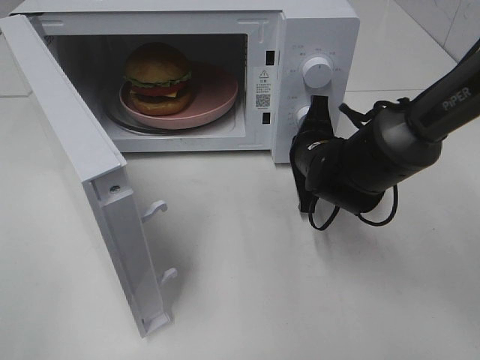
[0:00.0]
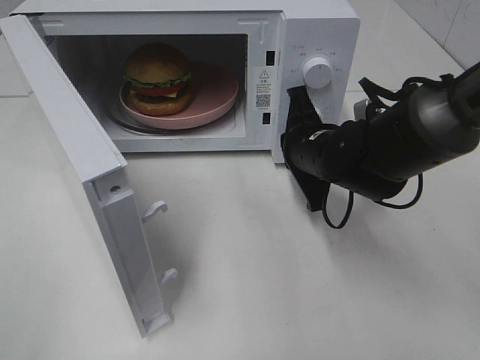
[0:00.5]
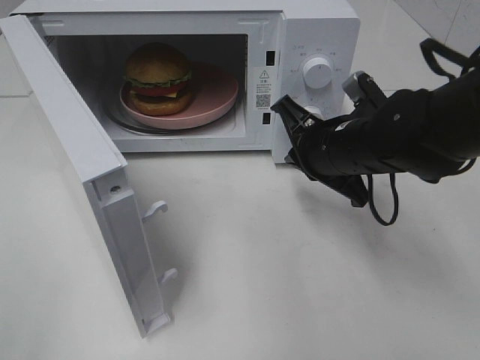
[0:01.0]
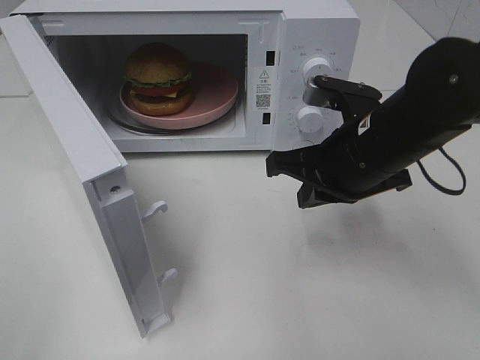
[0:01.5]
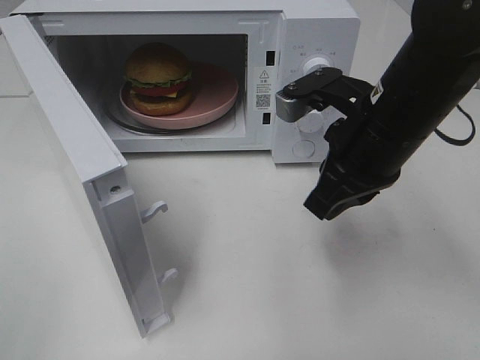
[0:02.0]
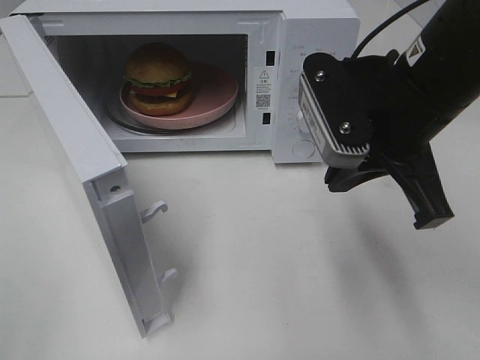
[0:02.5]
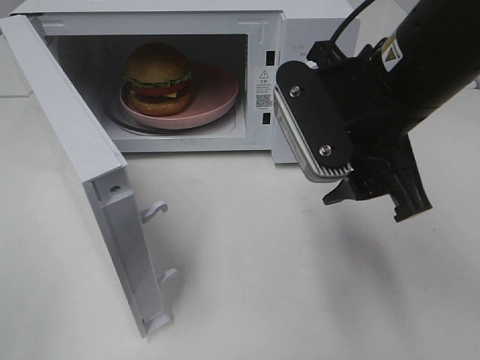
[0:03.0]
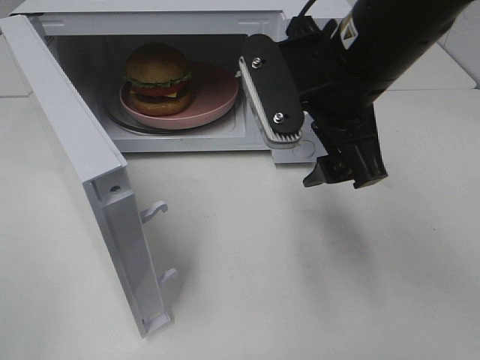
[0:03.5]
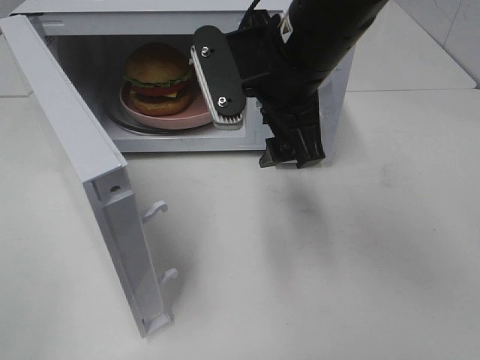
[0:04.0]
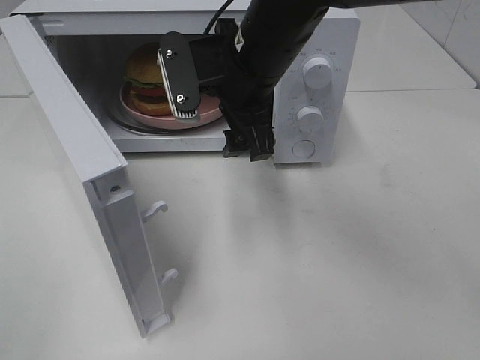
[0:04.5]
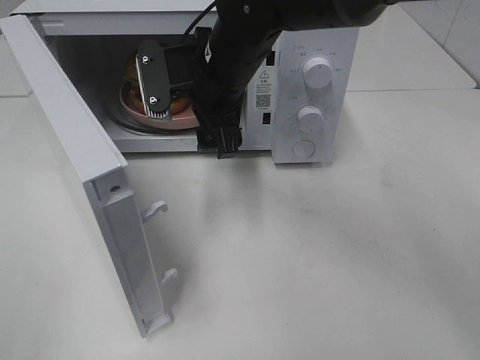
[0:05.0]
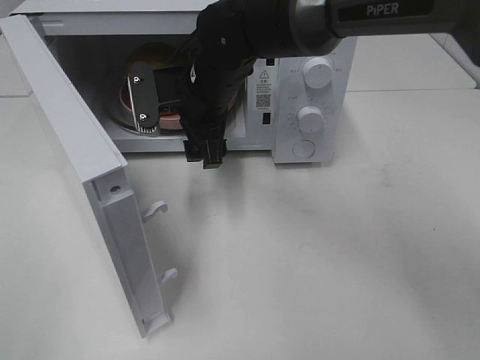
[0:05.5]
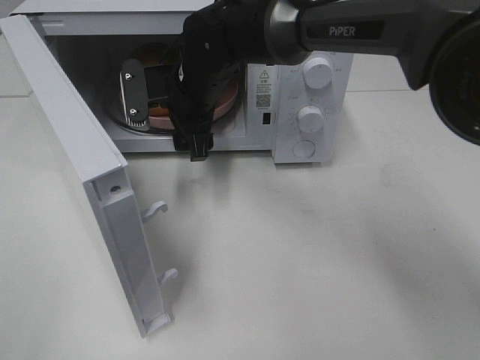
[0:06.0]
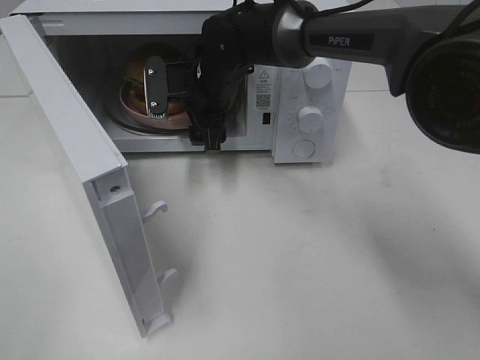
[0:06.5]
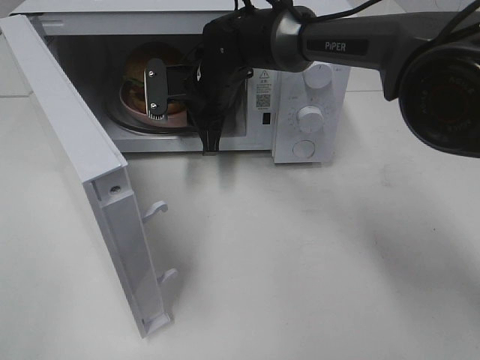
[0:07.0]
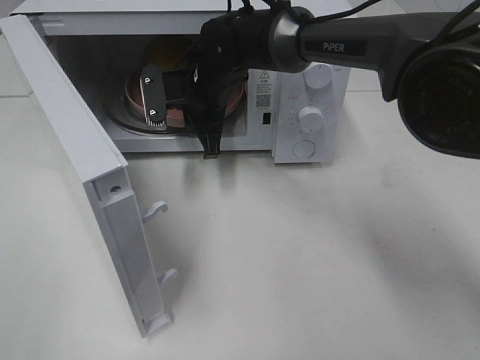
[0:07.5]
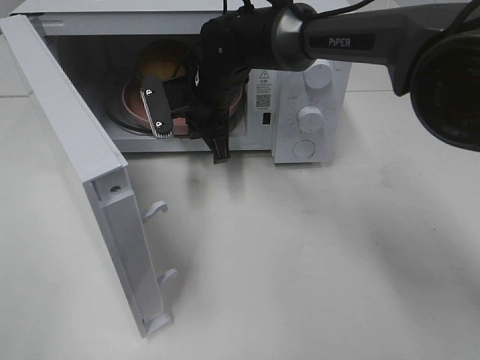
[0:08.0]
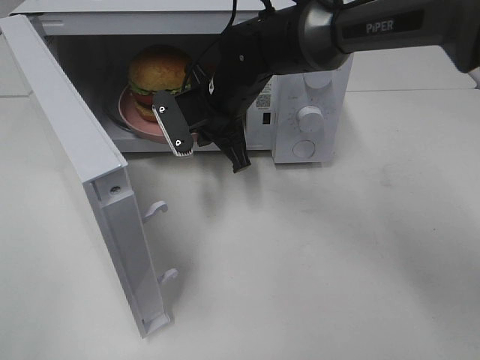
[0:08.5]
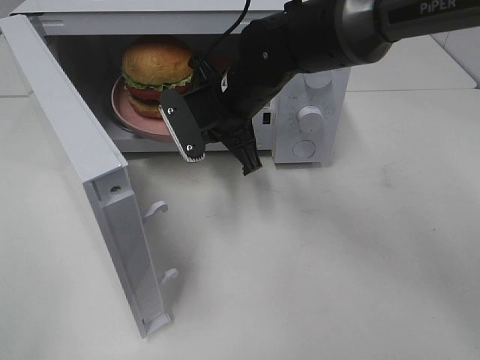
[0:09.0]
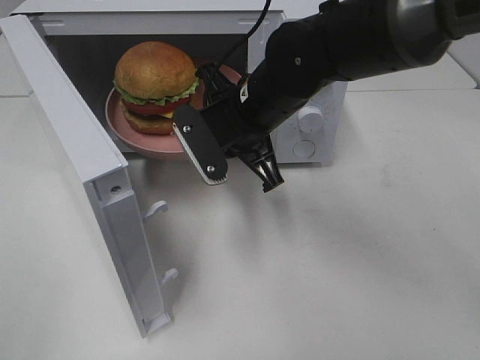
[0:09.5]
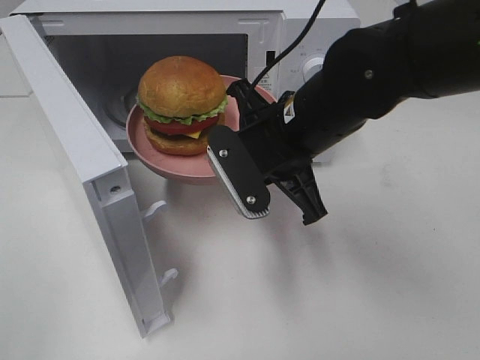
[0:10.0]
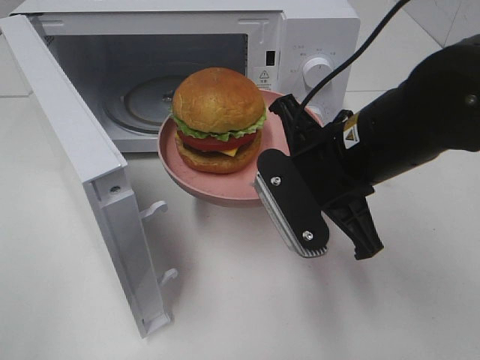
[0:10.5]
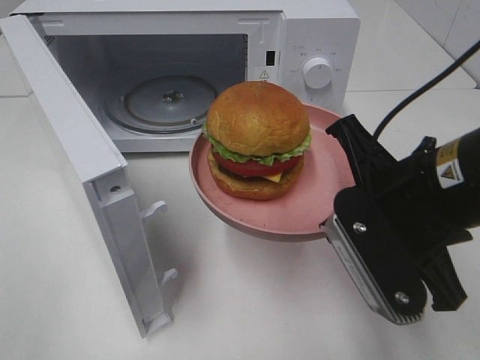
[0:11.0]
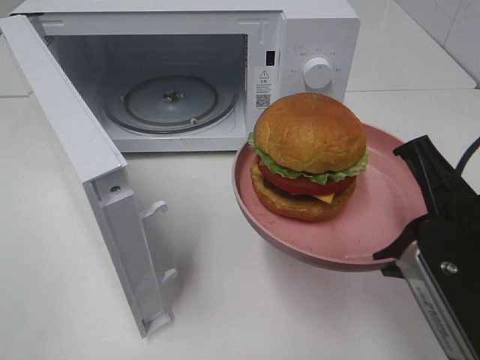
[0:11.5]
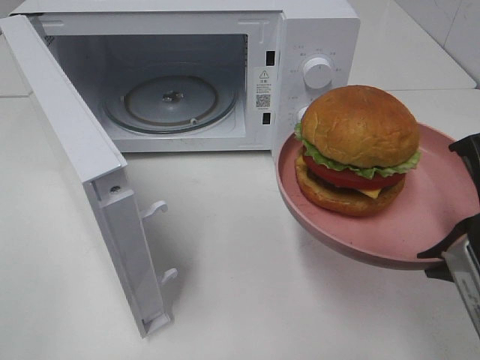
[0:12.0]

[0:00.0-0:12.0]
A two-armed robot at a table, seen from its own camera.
Task of the whole recording: Heat the burger.
Step, 0:01.0 to 0:07.0: Right hand: grab the plate with the hamburger.
0:00.0 to 0:02.0: The right gripper travels upward and backward by some 15 cm.
0:02.0 to 0:04.0: The right gripper moves to the left, about 10 cm, and opens.
0:04.0 to 0:06.0: The right gripper is displaced forward, to the left and downward by some 15 cm.
0:06.0 to 0:08.0: The right gripper closes.
0:08.0 to 0:10.0: The right gripper heads backward and to the right, covering about 15 cm.
0:10.0 to 0:12.0: The right gripper travels backward and to the right by roughly 20 cm.

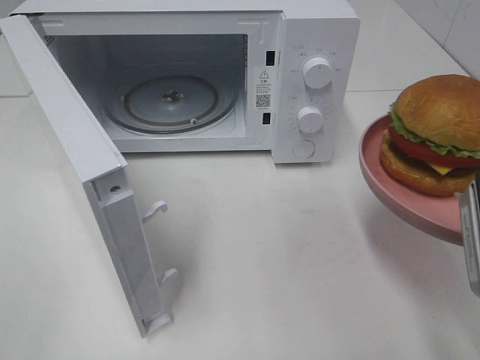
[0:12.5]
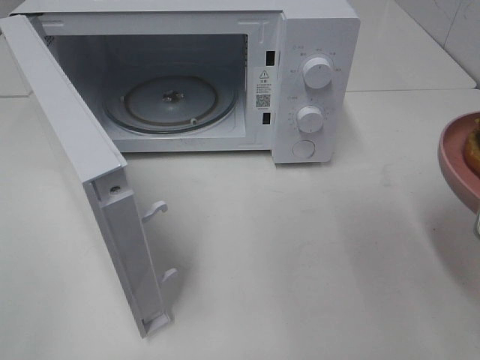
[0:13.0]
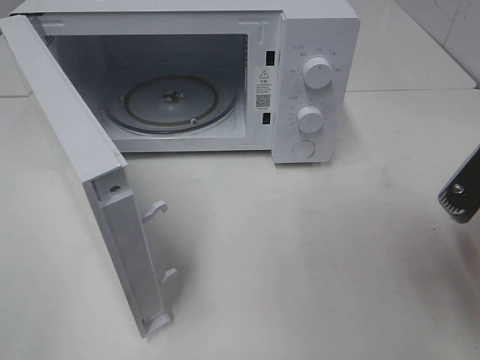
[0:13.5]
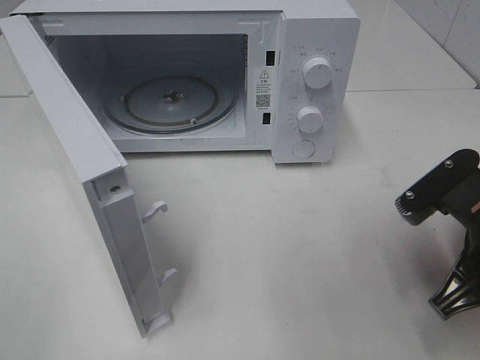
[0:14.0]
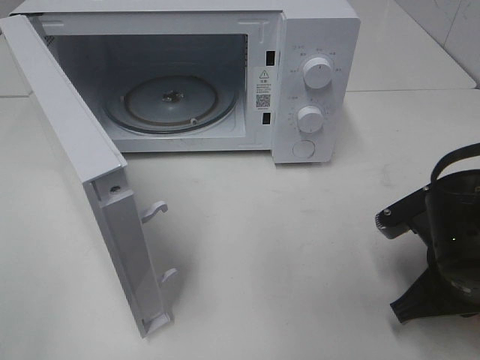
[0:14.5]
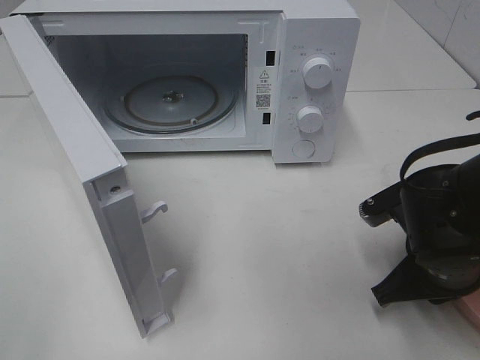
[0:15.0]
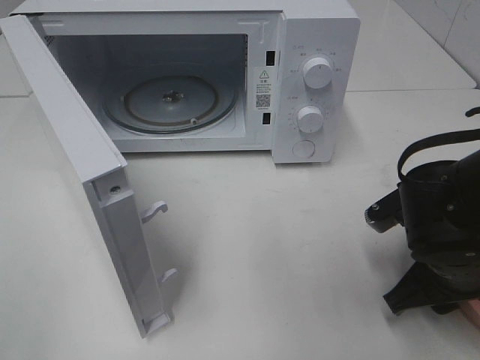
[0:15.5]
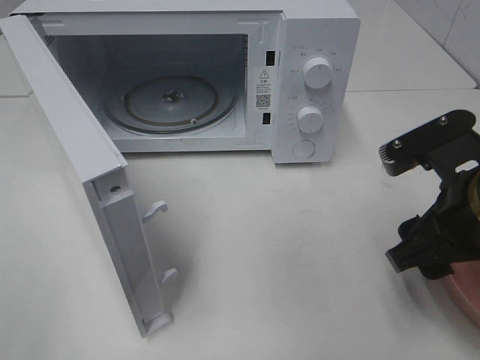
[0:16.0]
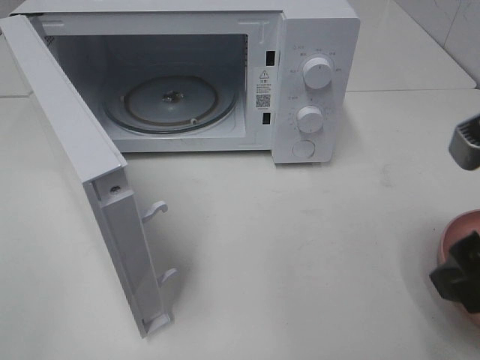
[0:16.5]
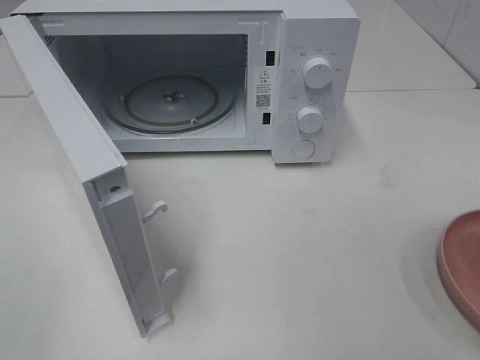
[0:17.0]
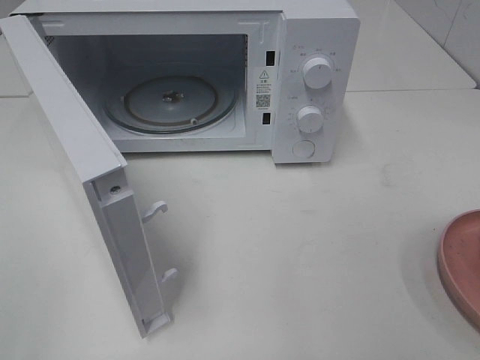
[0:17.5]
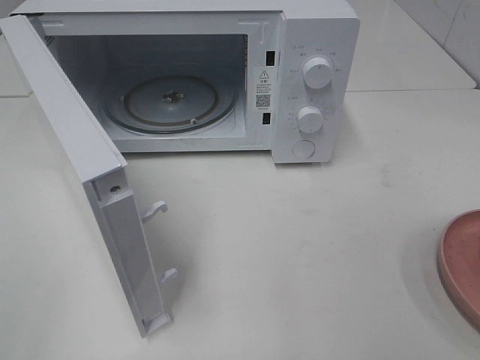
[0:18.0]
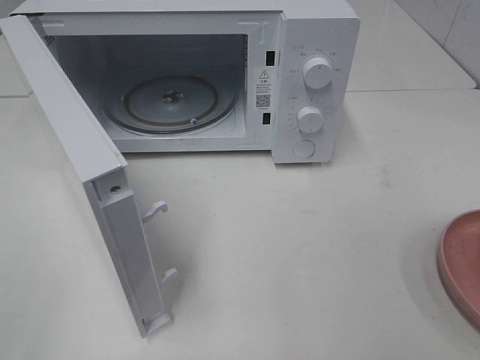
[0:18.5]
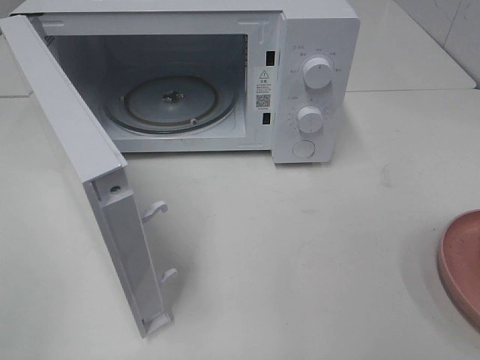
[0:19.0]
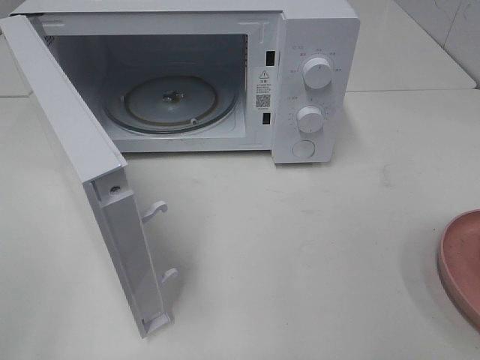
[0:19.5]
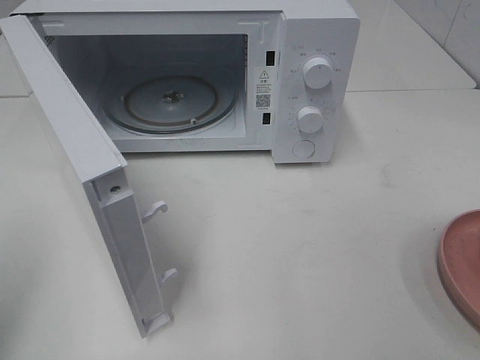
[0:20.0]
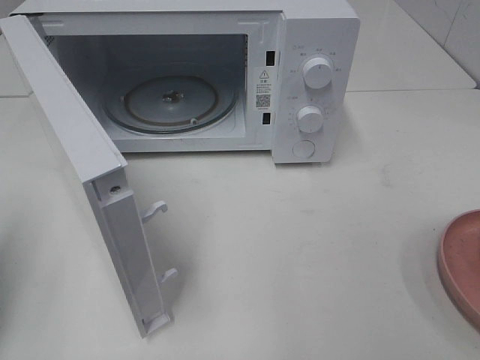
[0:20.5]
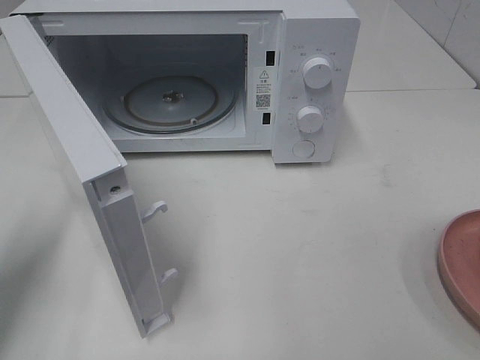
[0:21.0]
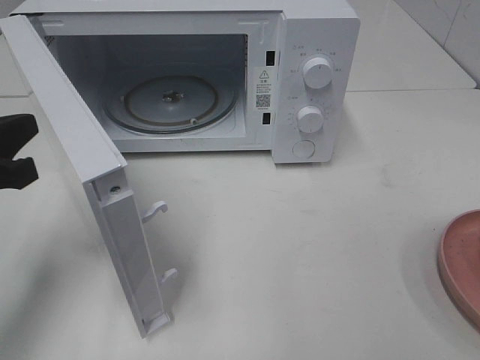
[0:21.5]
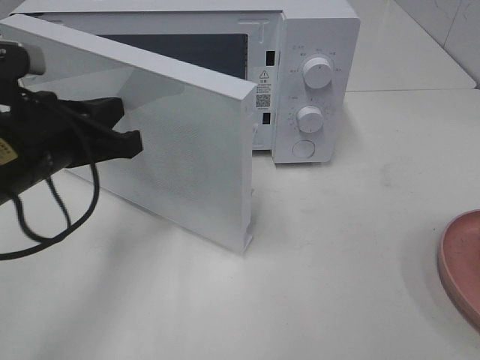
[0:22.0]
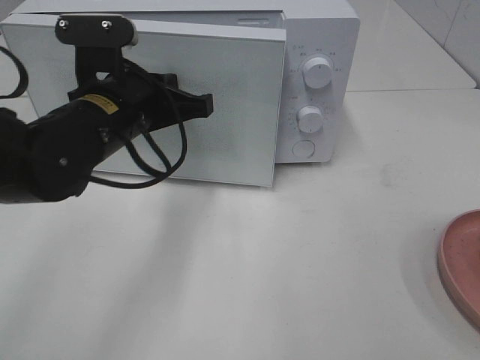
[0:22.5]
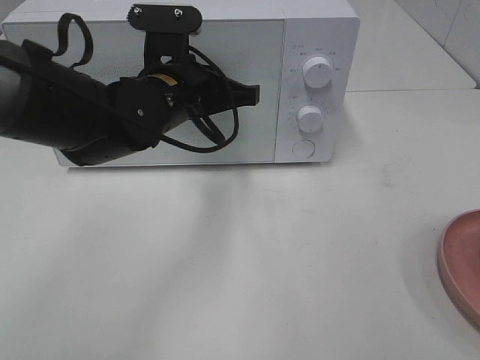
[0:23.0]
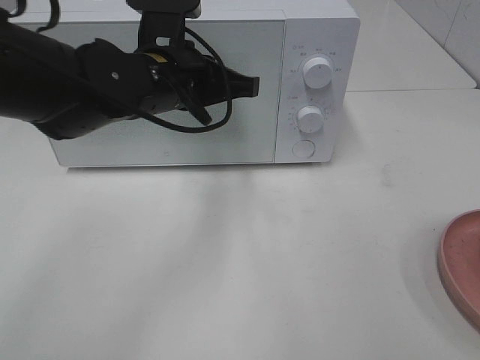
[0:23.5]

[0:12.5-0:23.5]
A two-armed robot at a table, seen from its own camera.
Task of the whole recording: Heat the burger.
Step, 0:12.5 to 0:16.0: Right hand: place the plate on the table.
0:12.5 to 0:14.5: The right gripper moves downward and forward, about 15 cm.
0:14.5 to 0:16.0: The right gripper is displaced upward by roughly 10 cm, and opens.
0:16.0 to 0:18.0: The right gripper travels backward, to the right and upward by roughly 25 cm.
0:20.0 to 0:21.5: The left gripper is displaced forward, downward and to the right by about 15 cm.
0:21.5 to 0:23.5: The left gripper travels to the right and forward by about 20 cm.

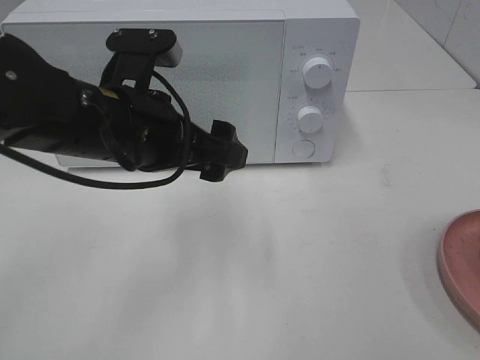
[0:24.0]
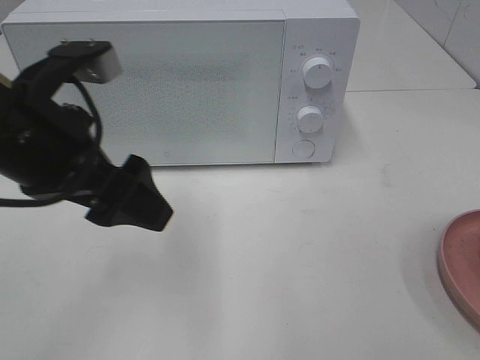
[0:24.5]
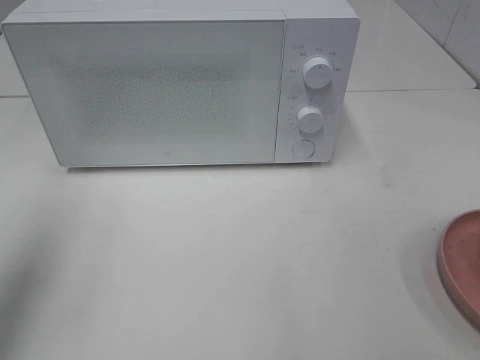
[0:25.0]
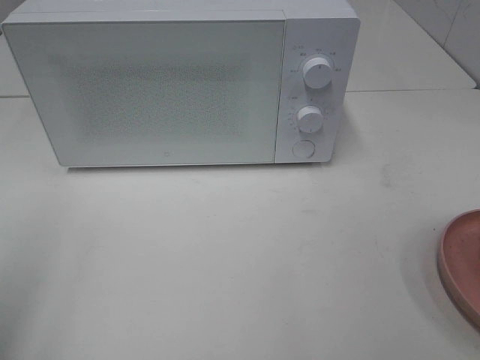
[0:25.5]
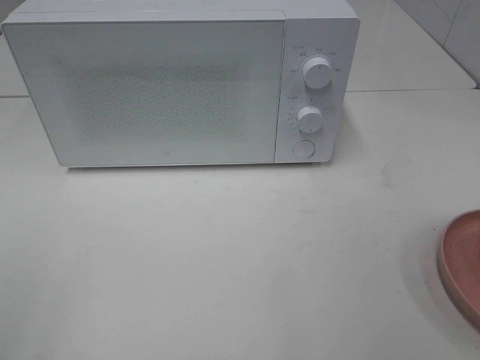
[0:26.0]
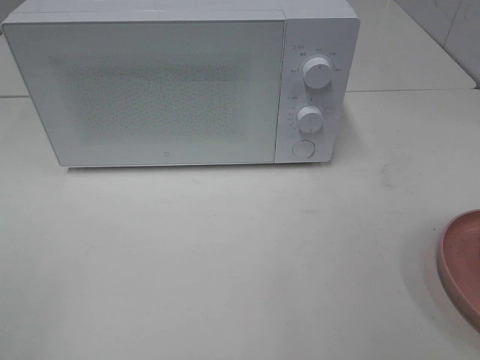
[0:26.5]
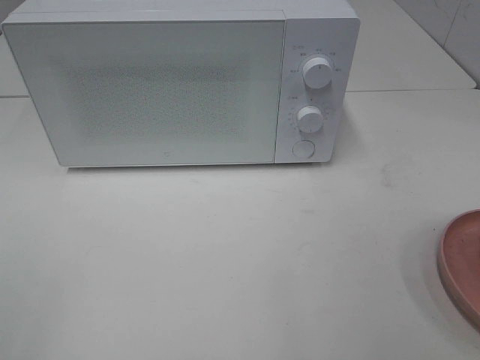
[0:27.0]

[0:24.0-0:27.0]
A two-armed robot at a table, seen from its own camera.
Task of the whole recording: Heat the burger.
0:24.0 to 0:25.5: The left gripper moves to the left, backward and upward, about 30 cm.
